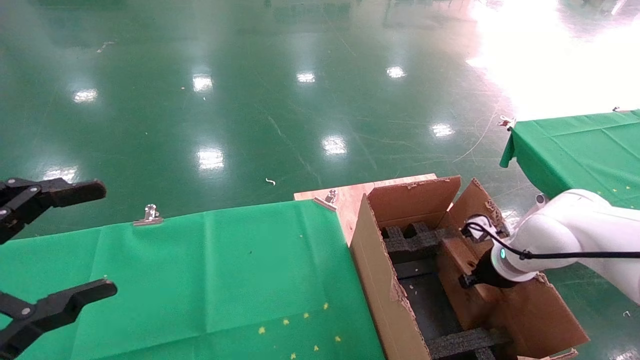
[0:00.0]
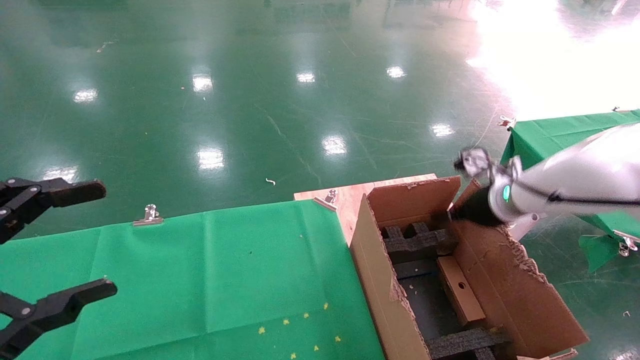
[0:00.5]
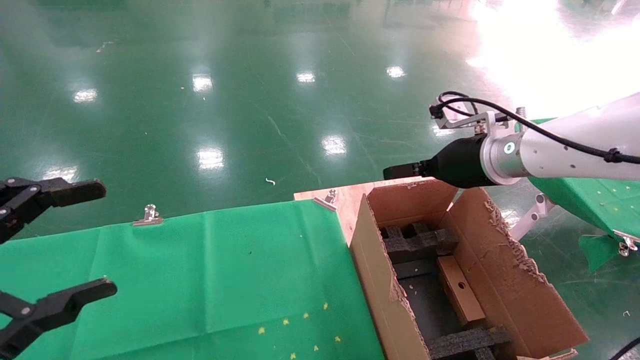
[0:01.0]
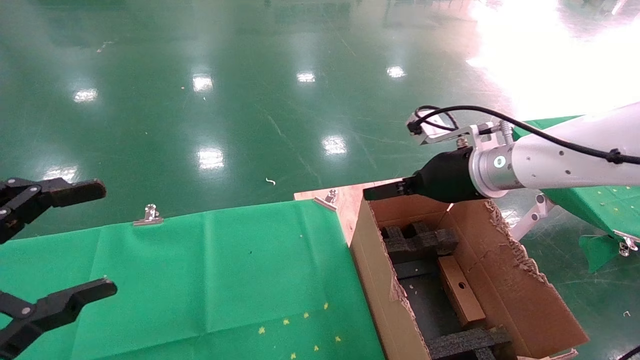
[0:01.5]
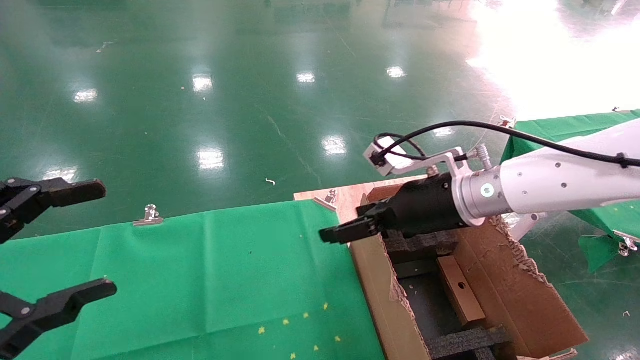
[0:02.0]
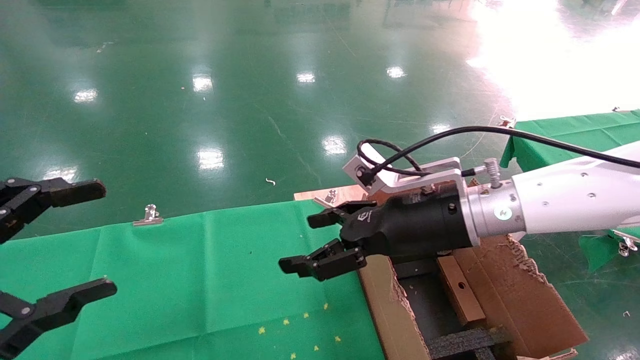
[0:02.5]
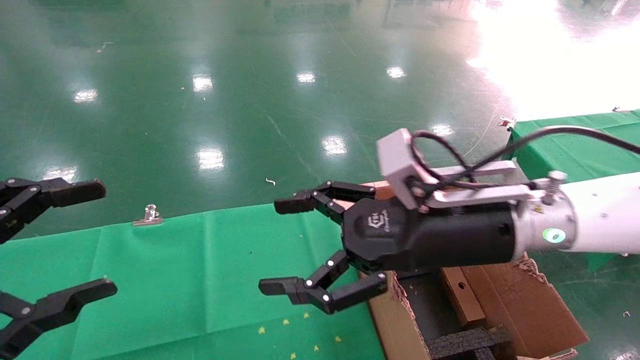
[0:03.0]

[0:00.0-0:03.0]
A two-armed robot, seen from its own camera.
Task of the whole recording: using a robotic arm to pick up a cardboard box and palace it the carton.
0:00.0 to 0:01.5: The right gripper shifts about 20 cm upward and to the left, and opens up.
0:01.5 to 0:03.0: The right gripper is displaced backward and to the left by roughly 15 cm.

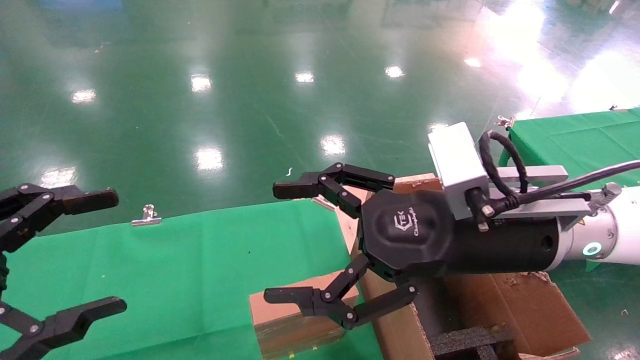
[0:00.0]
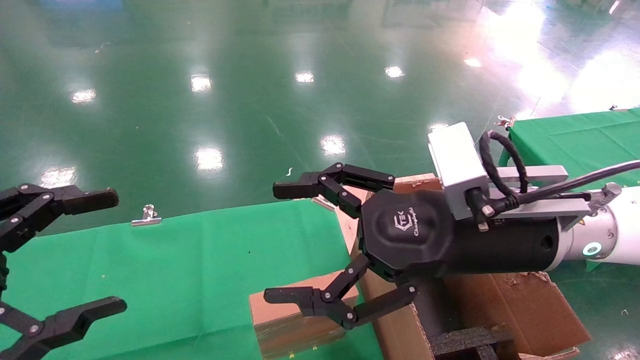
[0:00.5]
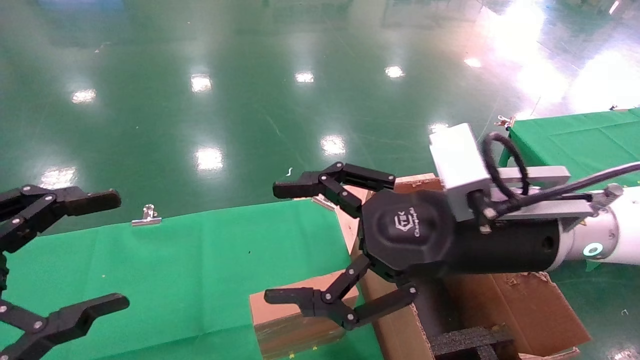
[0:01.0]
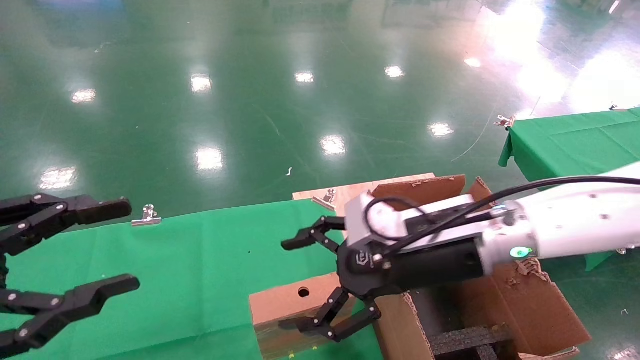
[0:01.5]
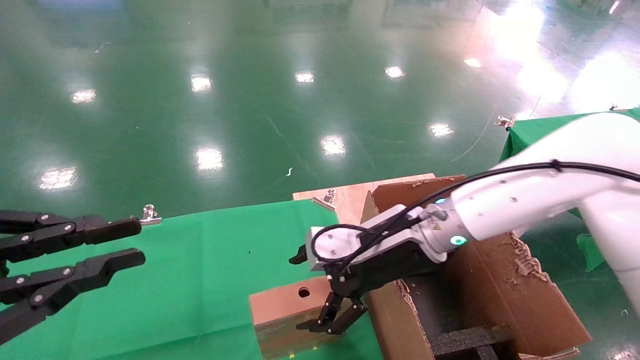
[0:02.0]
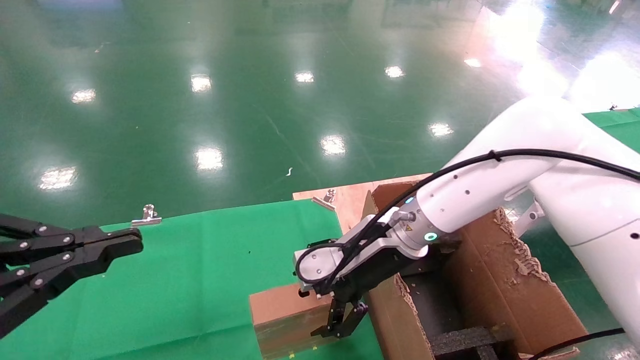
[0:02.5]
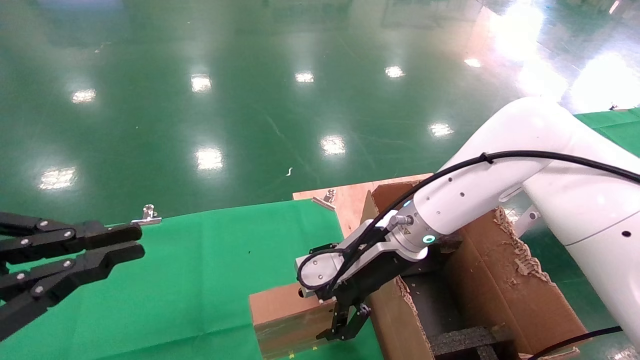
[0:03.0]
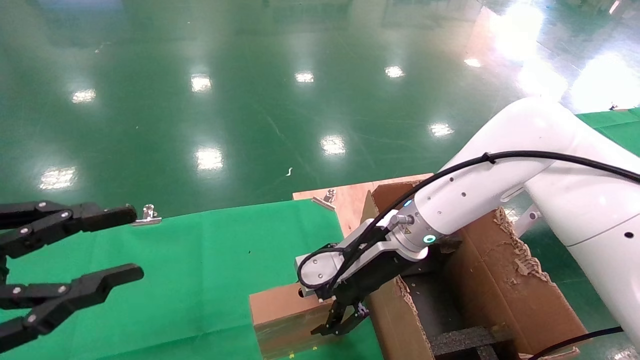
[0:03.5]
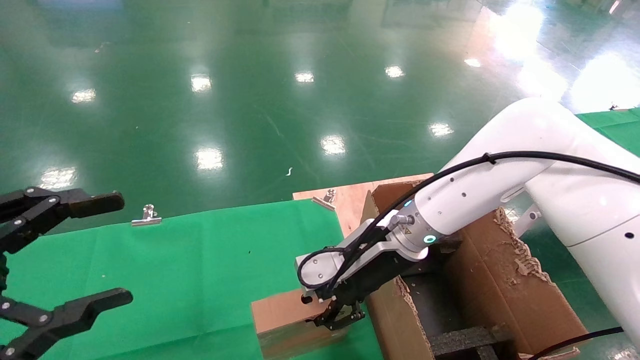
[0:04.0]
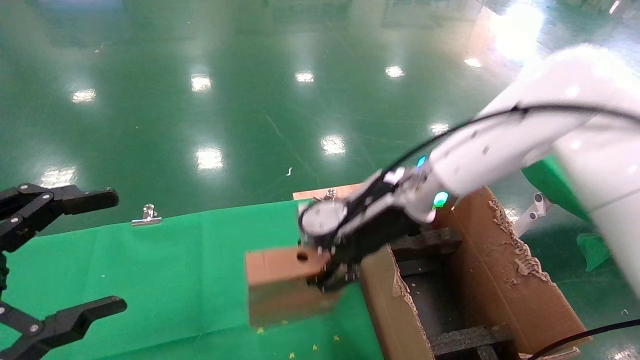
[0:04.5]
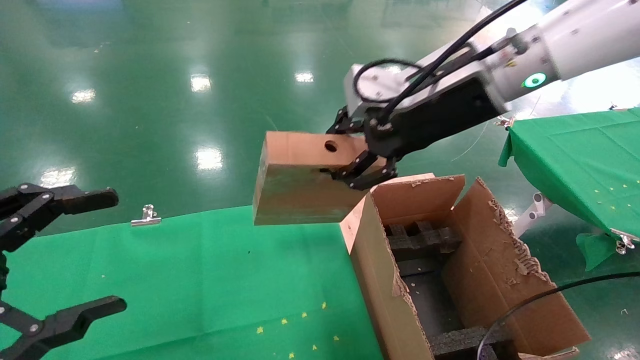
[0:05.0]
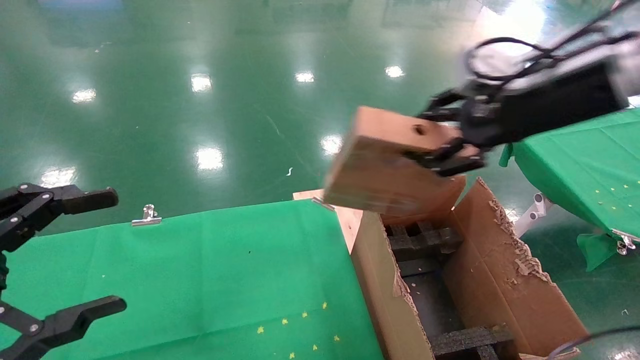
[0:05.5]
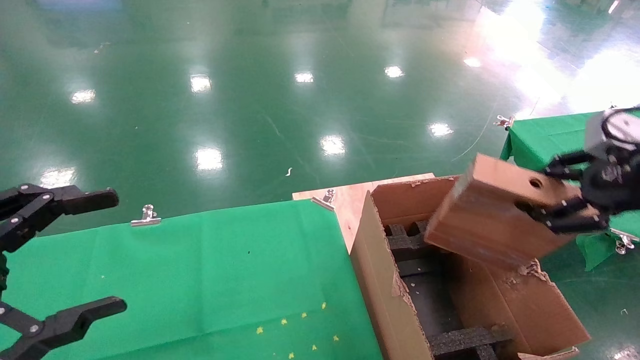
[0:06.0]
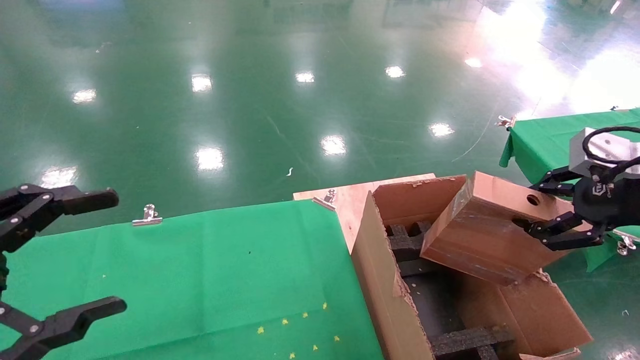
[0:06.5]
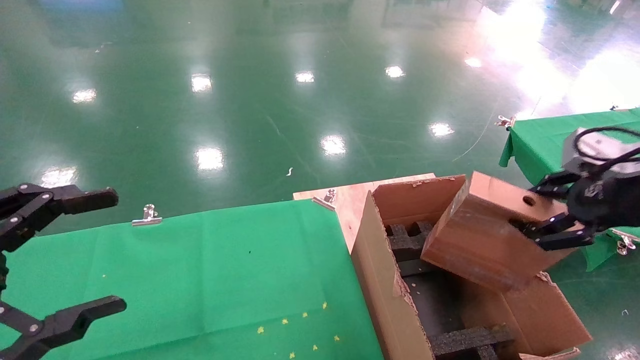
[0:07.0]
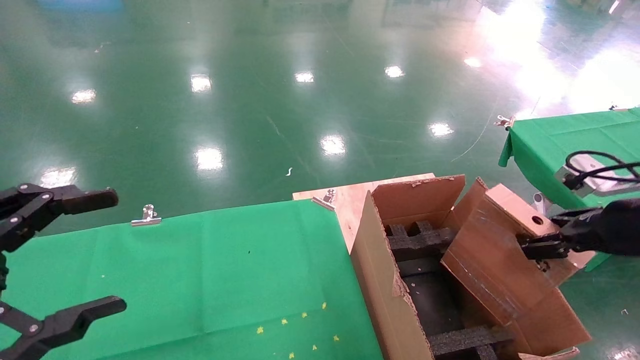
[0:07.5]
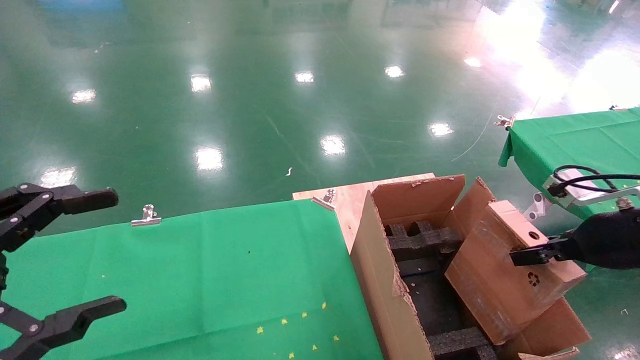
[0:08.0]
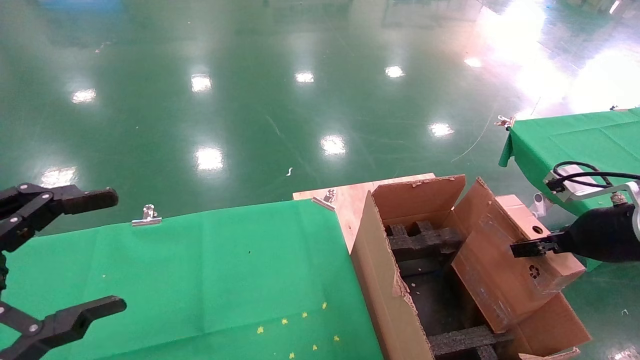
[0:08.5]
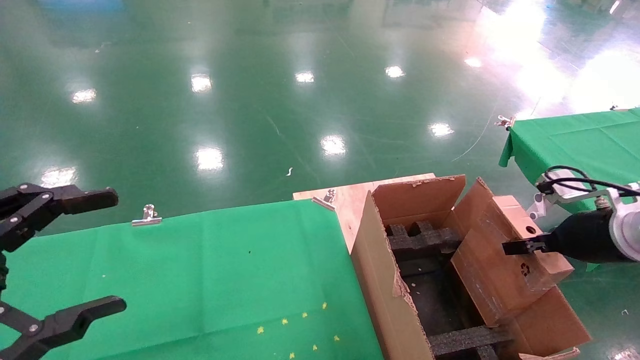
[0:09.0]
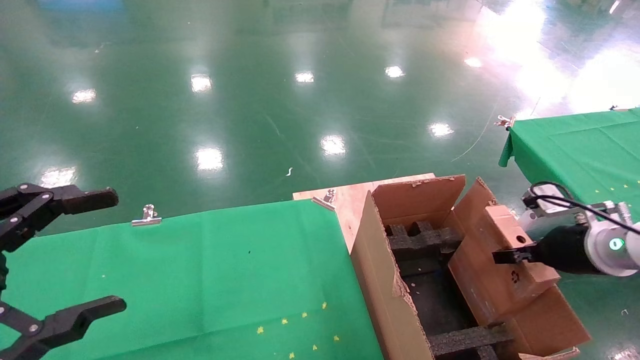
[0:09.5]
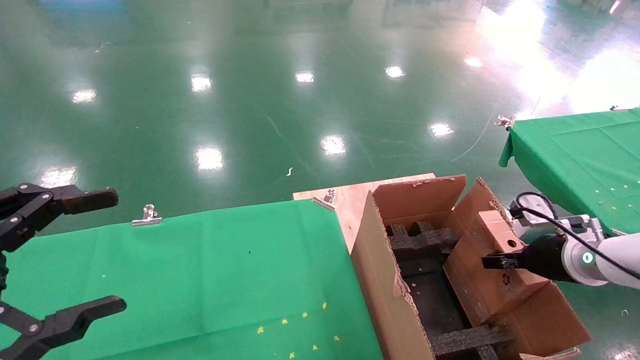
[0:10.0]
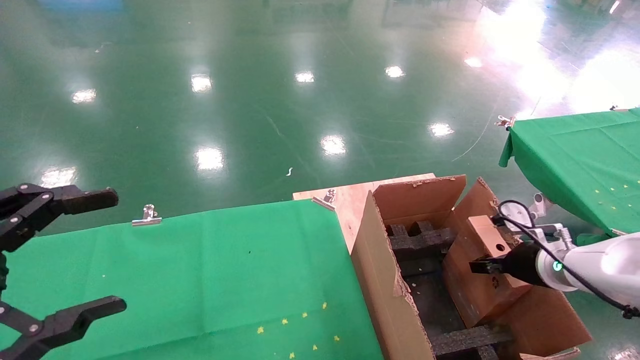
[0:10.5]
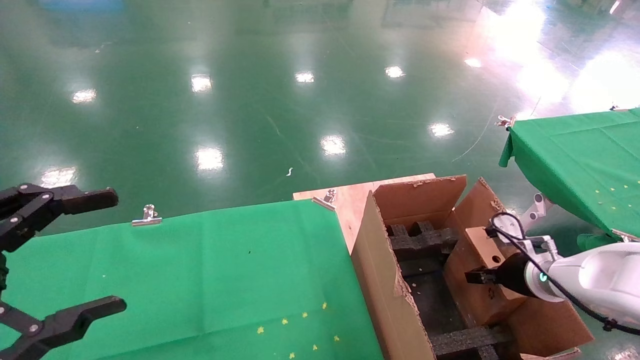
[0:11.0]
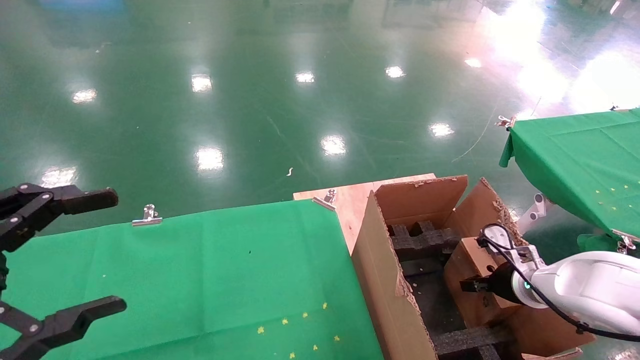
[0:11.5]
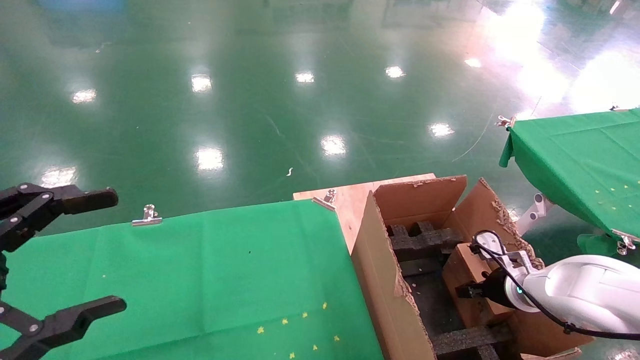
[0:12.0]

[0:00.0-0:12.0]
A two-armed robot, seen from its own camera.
Task of the whole recording: using a robotic arm to pick up a cardboard box and palace it the carton.
Step, 0:01.5 to 0:04.0: Pick up the mouse and the power cord paper box.
0:00.0 to 0:02.0: The left gripper closes its fingers. Meanwhile the right gripper travels forward and downward by some 10 cm.
0:02.0 to 0:04.0: The right gripper closes; the left gripper opens up.
0:04.0 to 0:06.0: The right gripper travels to the right, backward and upward by some 35 cm.
0:06.0 to 0:08.0: The right gripper is displaced downward by roughly 10 cm.
0:08.0 to 0:10.0: The right gripper goes about 10 cm downward and forward.
0:10.0 to 0:12.0: The right gripper shifts some 10 cm downward and forward.

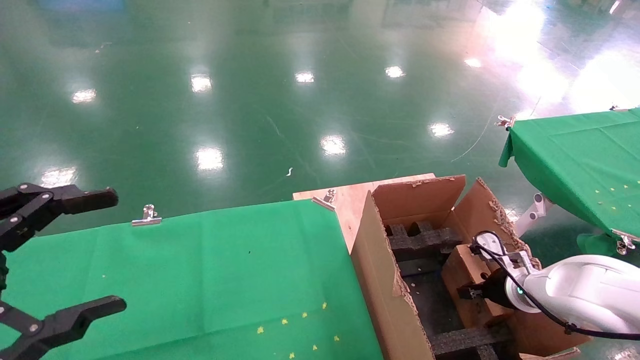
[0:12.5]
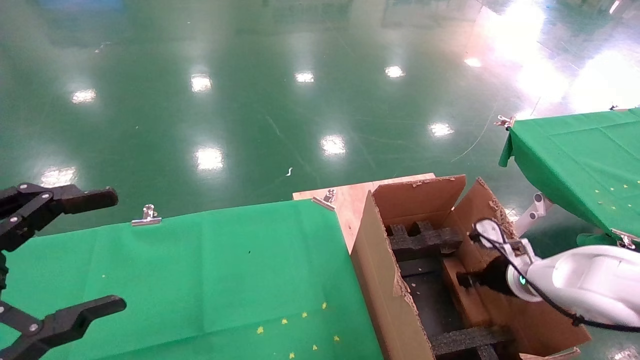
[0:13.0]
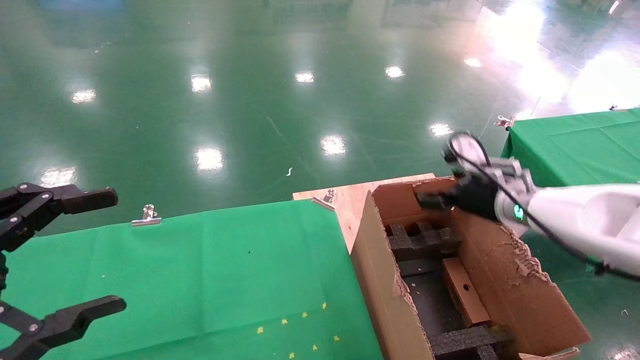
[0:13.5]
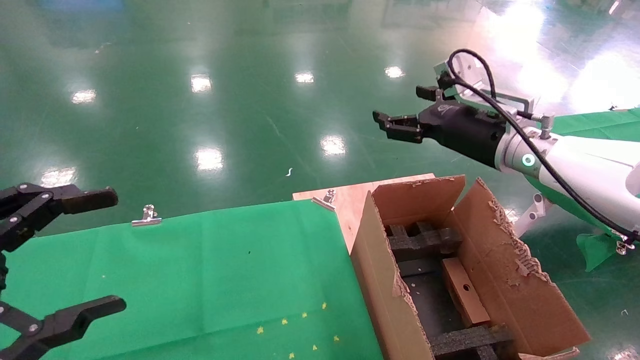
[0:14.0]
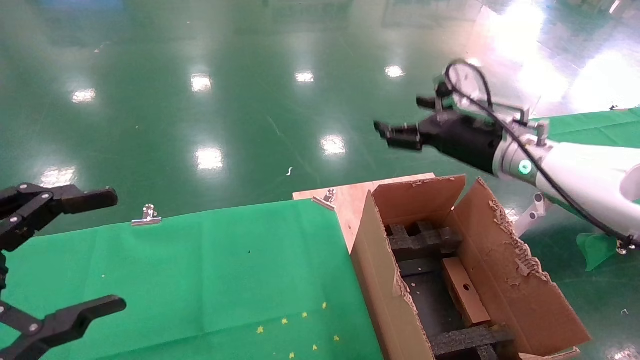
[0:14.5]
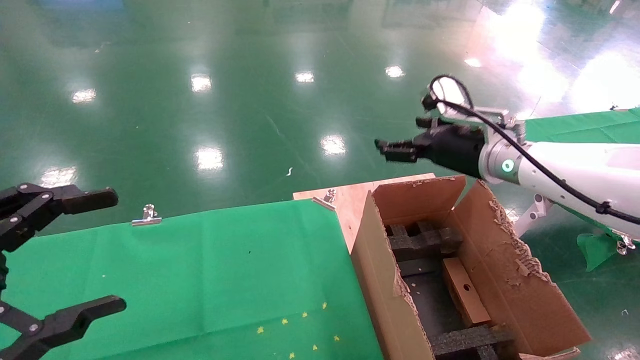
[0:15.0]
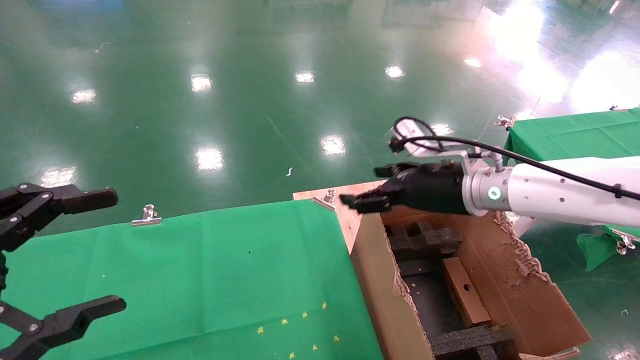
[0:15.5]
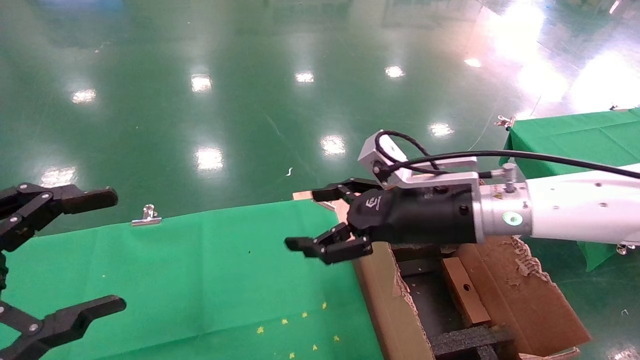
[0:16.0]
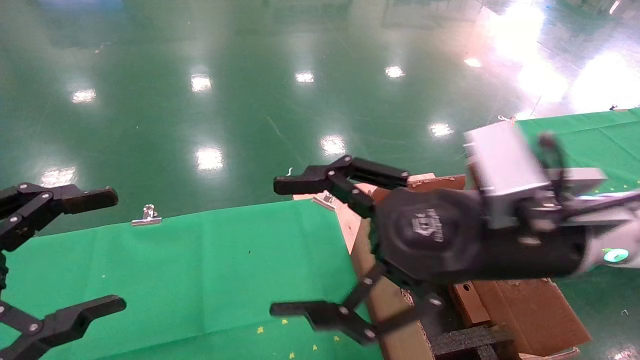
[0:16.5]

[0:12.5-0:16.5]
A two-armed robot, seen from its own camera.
Task of the whole recording: using a robotic arm to pick up a cardboard box and palace it the carton.
0:12.5 to 0:14.5: The right gripper moves upward, approximately 25 cm, and opens its fingers.
0:14.5 to 0:16.5: The right gripper shifts roughly 20 cm backward and to the left.
